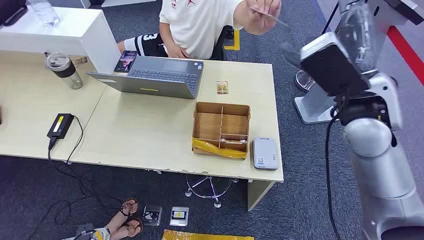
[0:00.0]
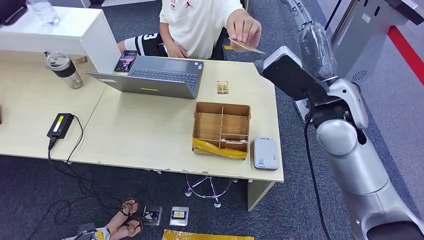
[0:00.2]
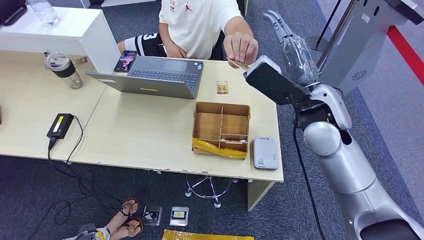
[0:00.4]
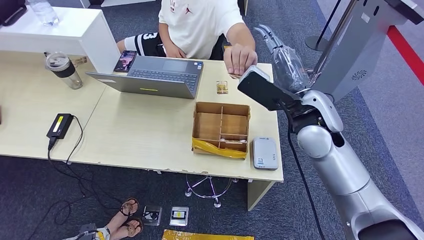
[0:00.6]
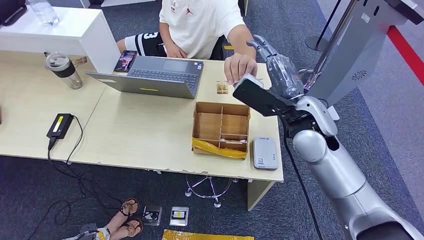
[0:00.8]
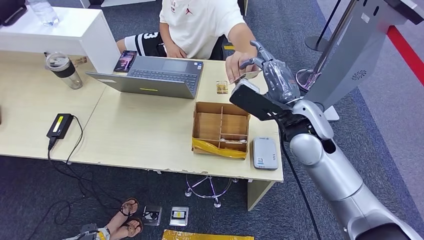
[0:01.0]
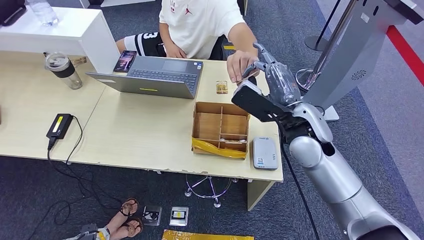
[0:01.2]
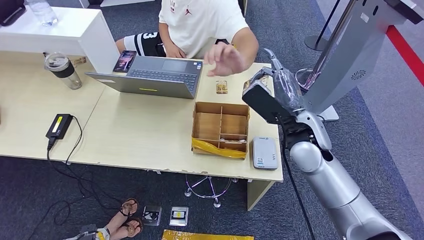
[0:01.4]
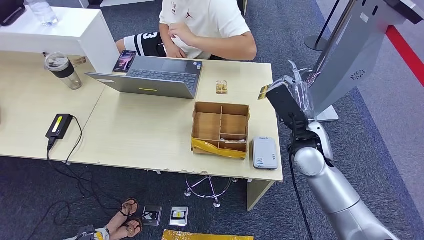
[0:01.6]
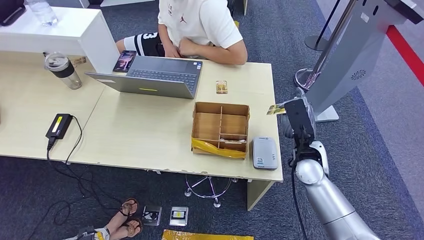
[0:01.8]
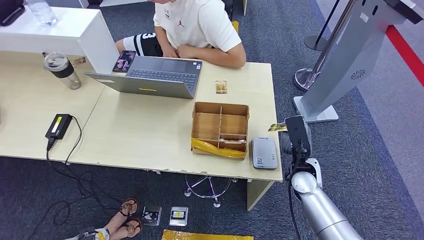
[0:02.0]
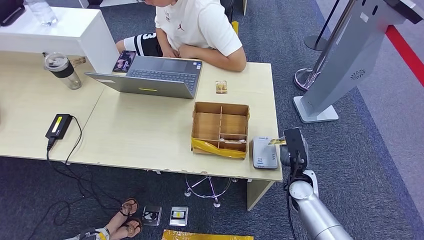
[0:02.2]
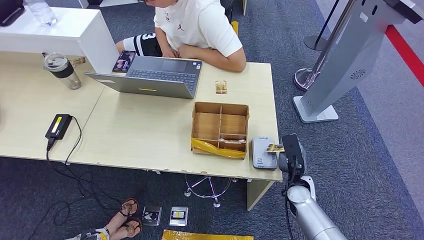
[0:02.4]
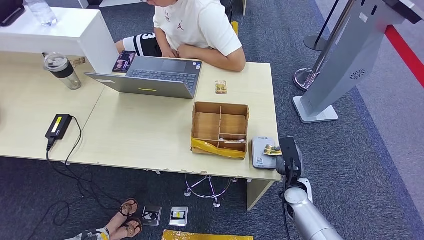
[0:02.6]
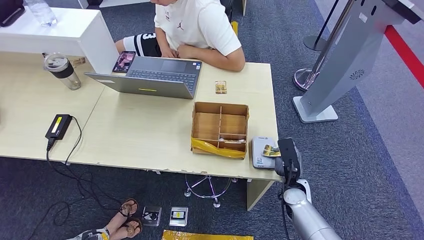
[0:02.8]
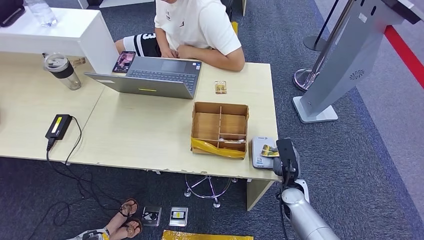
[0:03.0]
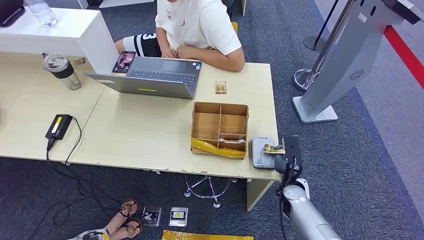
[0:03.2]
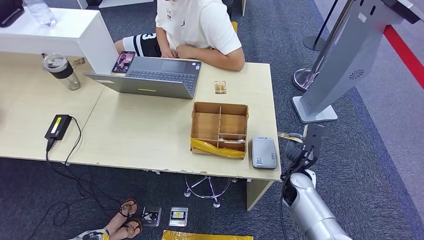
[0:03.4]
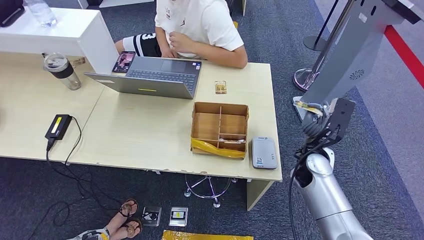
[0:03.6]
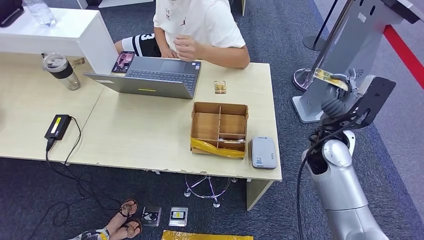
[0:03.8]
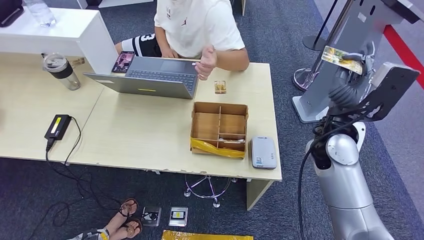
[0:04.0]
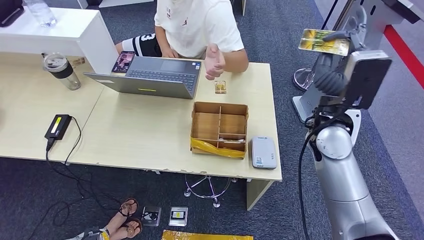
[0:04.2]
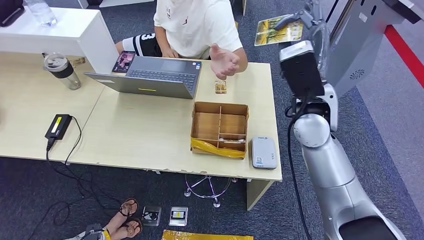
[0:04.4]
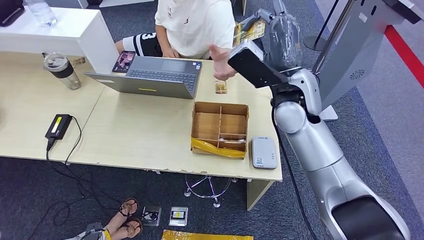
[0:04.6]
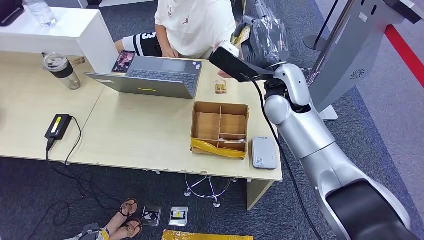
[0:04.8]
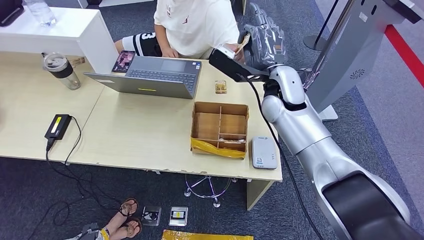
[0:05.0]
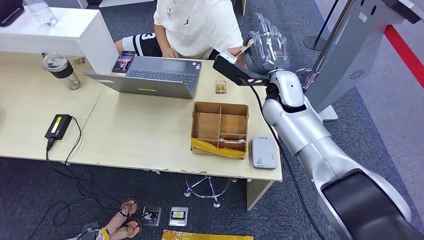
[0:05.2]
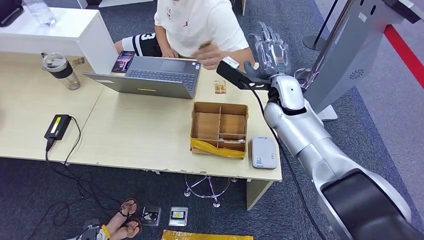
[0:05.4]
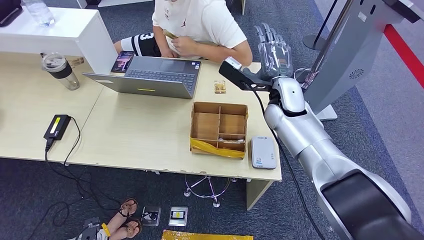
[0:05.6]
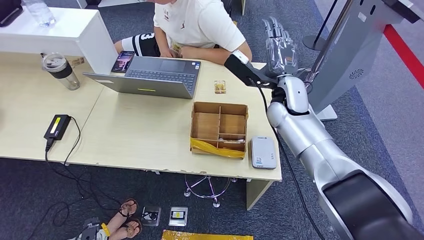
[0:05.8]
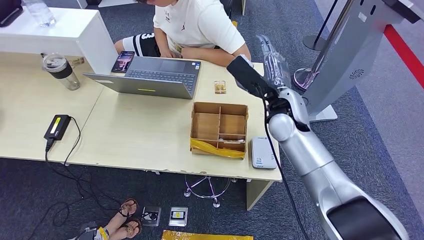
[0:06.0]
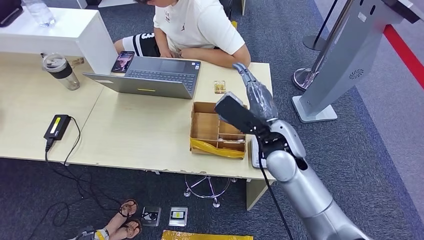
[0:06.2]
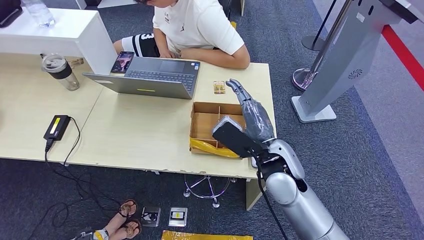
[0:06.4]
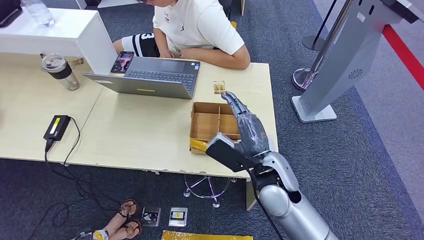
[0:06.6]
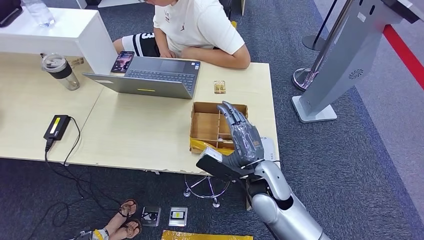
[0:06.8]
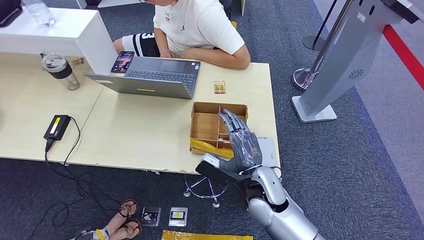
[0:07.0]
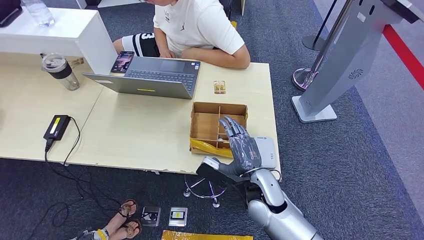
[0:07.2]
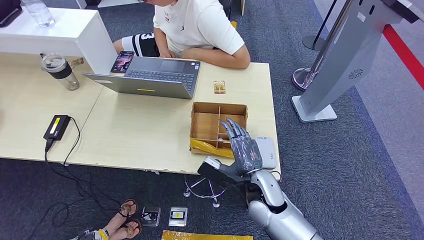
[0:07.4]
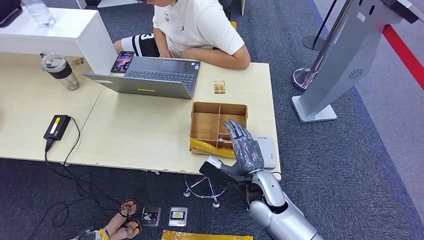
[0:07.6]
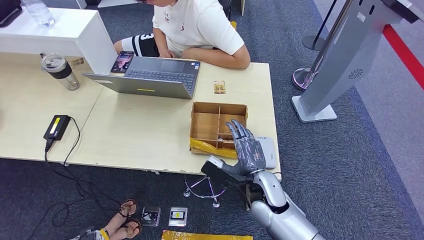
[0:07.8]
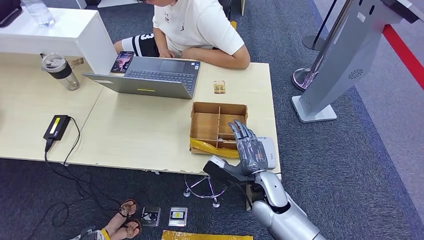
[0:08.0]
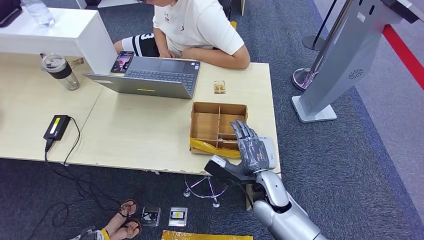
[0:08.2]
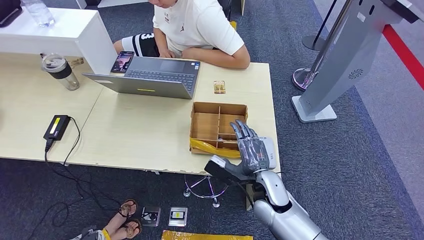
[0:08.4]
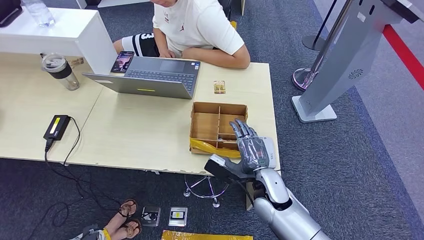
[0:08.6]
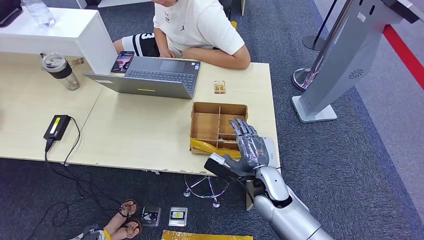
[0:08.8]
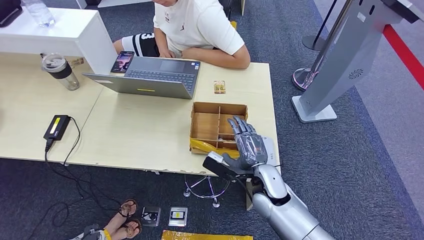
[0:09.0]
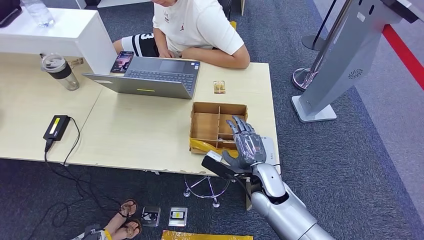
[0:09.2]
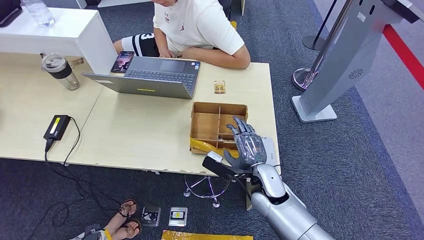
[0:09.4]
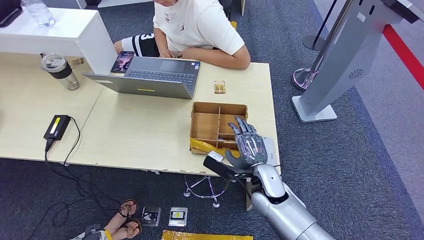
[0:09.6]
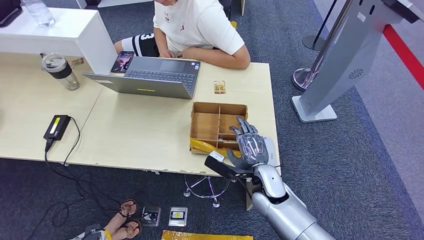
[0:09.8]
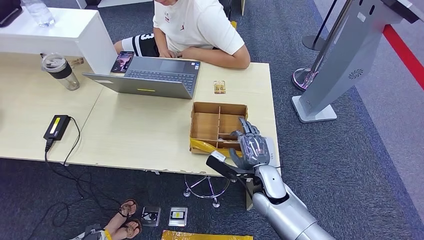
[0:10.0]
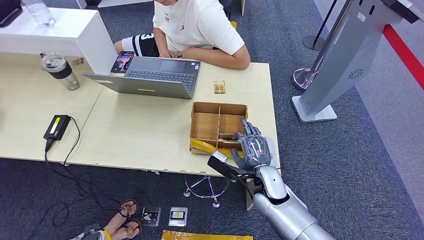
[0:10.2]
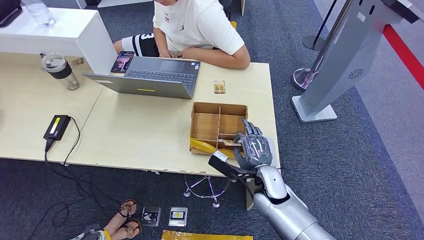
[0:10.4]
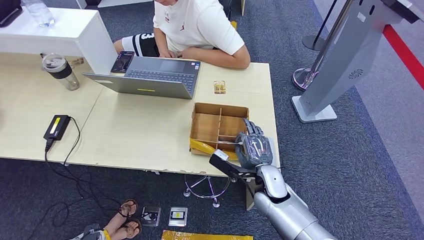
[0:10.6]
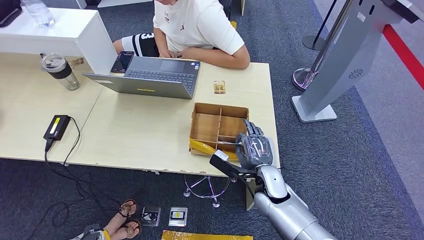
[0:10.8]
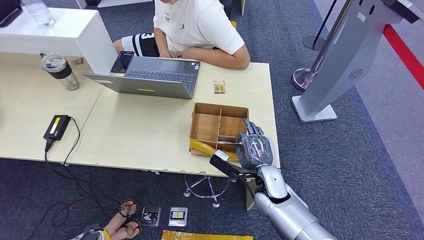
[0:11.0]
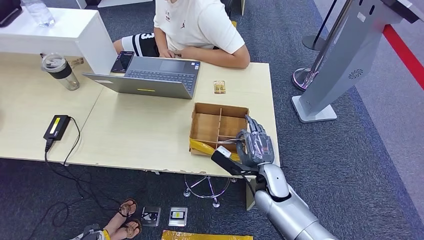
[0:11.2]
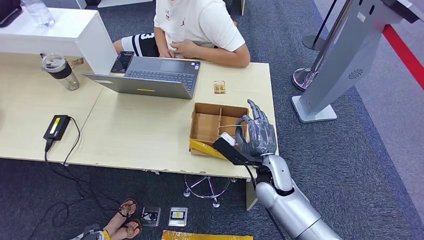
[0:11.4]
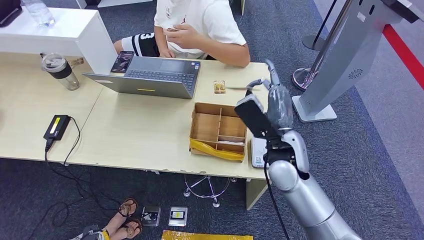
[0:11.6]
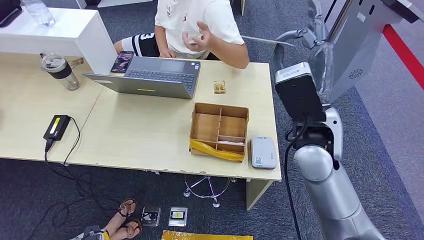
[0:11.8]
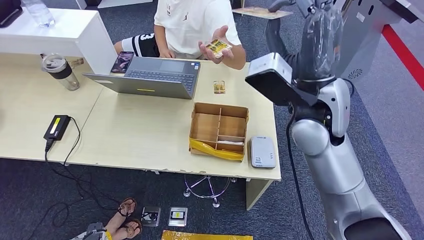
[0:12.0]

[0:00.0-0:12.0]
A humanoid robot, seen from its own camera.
Step, 0:00.0 to 0:03.0: Take the ID card from the person's hand.
Step, 0:03.2 to 0:04.0: Place the ID card on the card reader.
Step, 0:04.2 to 0:06.2: Hand the ID card to the person.
Step, 0:06.4 to 0:11.8: Pick up the room key from the key card box.
0:01.6 to 0:03.0: The right hand shifts roughly 20 cm downward.
0:03.0 to 0:04.4: The right hand moves upward, some 30 cm.
0:04.4 to 0:06.0: The right hand heads downward, covering some 5 cm.
0:06.0 to 0:07.6: The right hand shifts approximately 20 cm downward and backward.
0:07.6 to 0:10.4: The hands make only small movements.

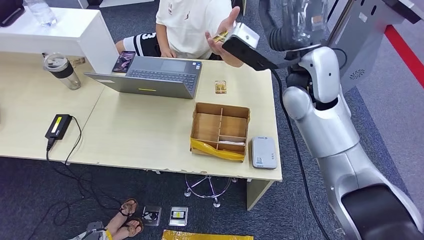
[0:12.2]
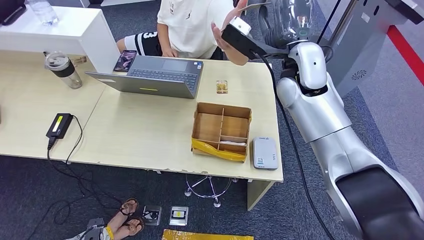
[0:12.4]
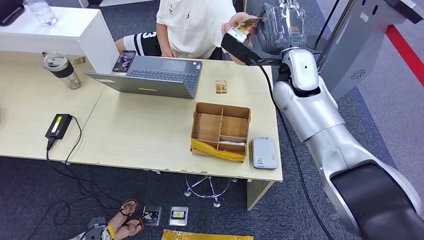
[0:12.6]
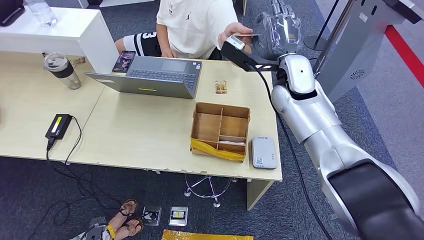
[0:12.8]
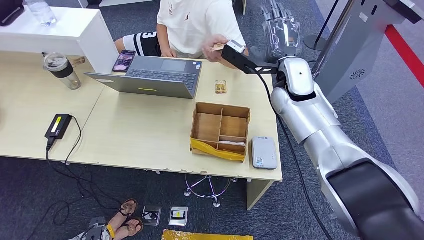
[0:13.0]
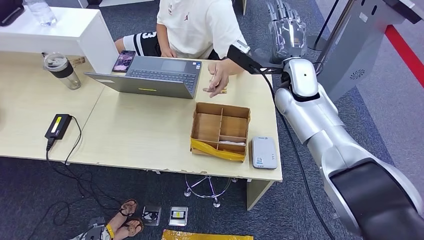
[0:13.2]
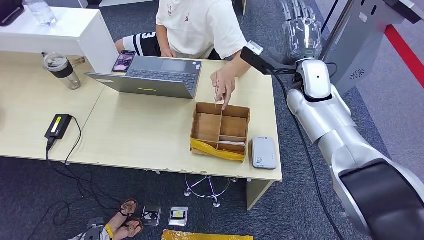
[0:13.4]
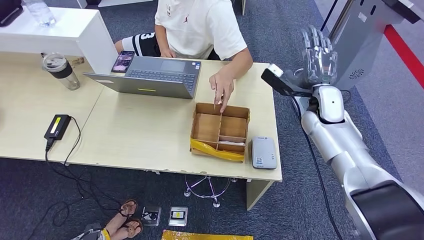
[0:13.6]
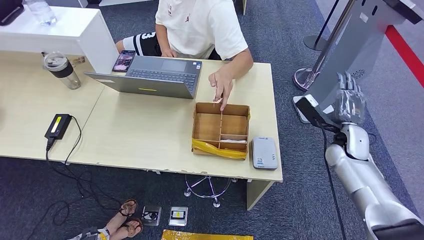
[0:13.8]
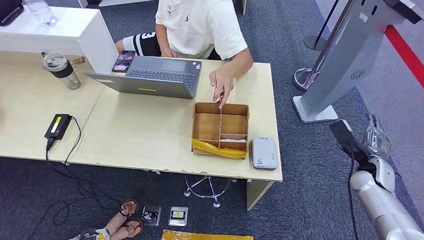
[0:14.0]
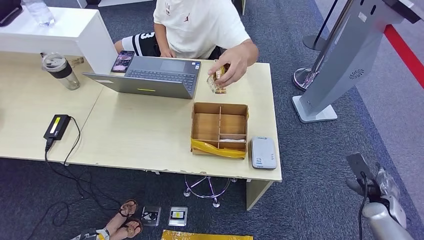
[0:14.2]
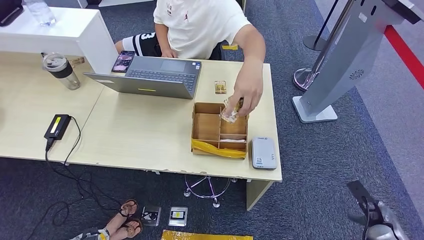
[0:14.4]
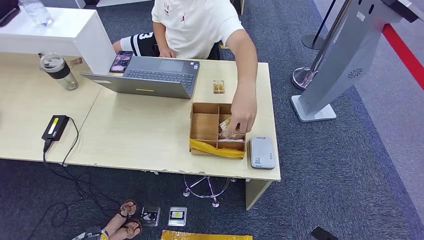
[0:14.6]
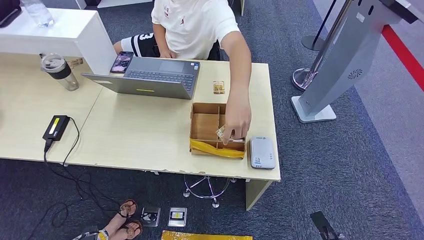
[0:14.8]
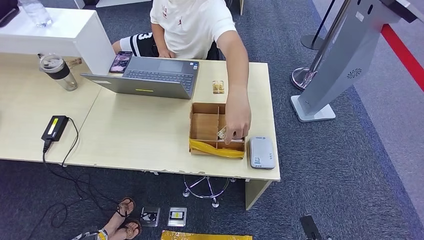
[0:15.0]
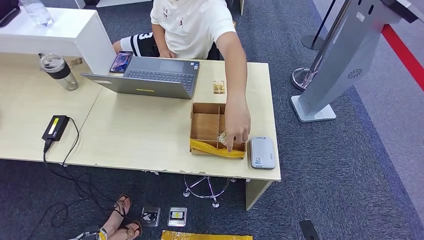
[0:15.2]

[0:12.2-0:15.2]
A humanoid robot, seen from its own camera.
Step, 0:12.2 to 0:15.2: Hand the room key to the person.
0:12.2 to 0:13.8: The right hand shifts approximately 30 cm downward and to the right.
